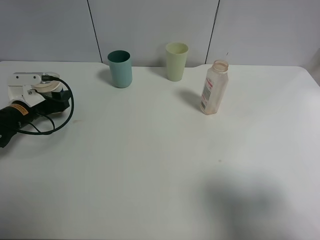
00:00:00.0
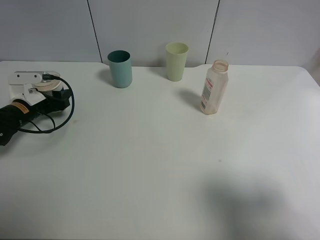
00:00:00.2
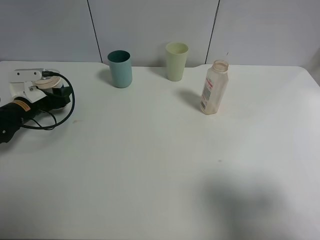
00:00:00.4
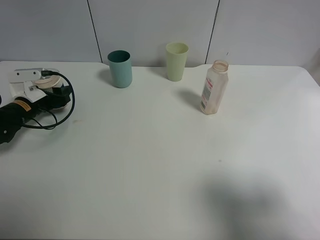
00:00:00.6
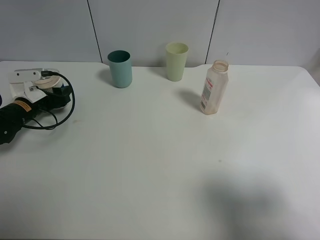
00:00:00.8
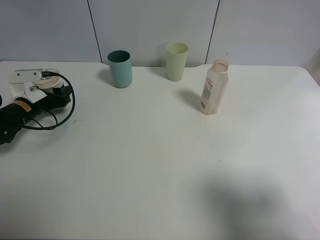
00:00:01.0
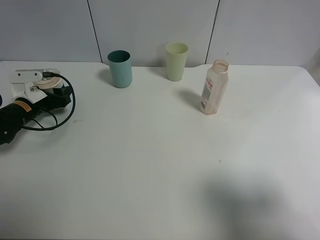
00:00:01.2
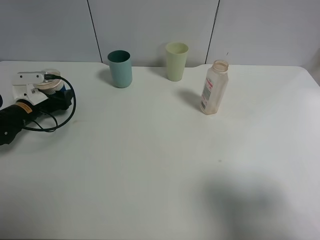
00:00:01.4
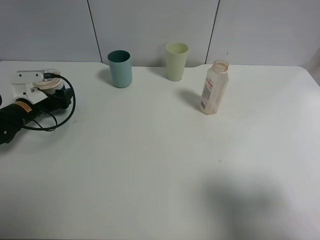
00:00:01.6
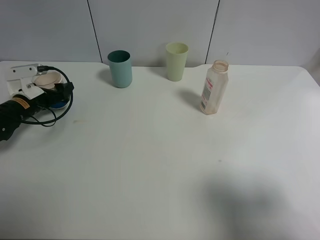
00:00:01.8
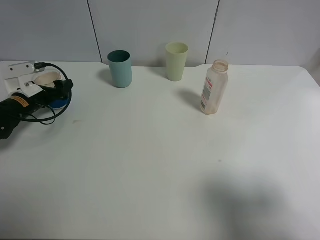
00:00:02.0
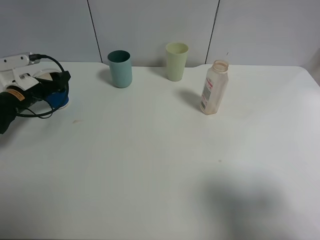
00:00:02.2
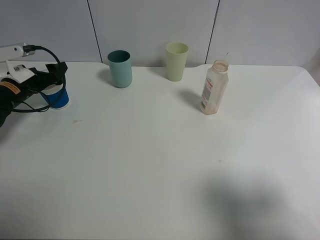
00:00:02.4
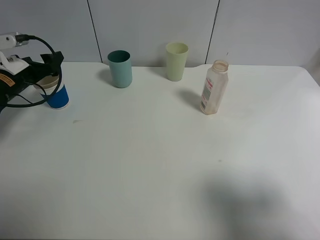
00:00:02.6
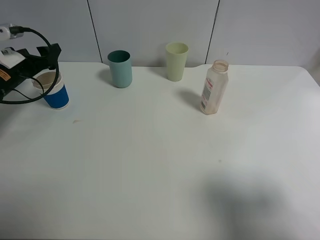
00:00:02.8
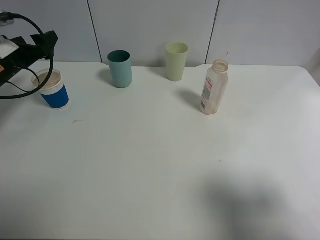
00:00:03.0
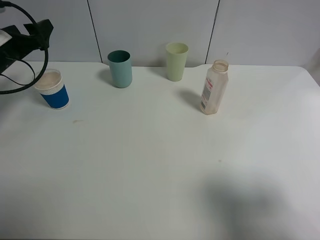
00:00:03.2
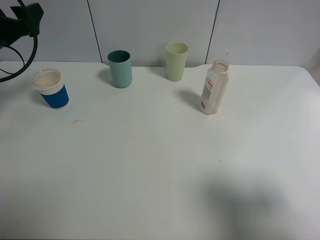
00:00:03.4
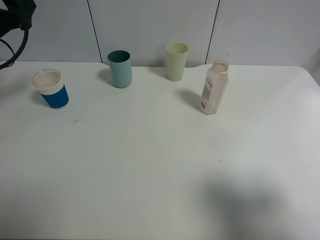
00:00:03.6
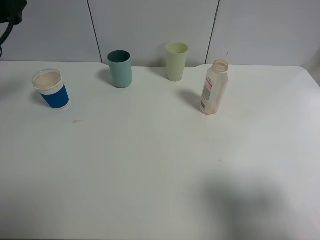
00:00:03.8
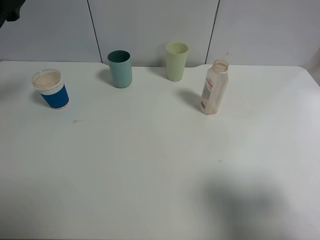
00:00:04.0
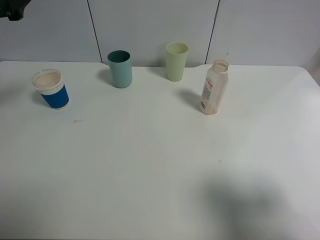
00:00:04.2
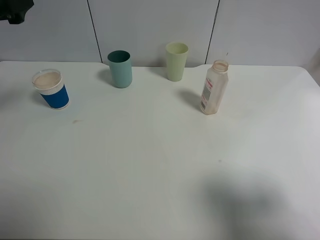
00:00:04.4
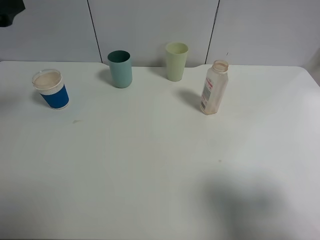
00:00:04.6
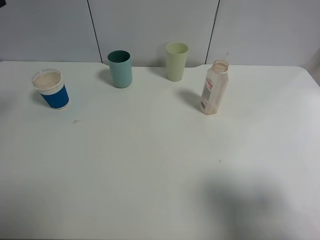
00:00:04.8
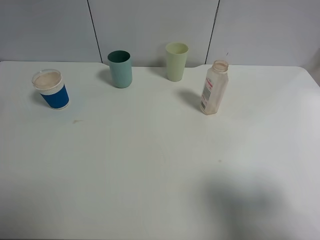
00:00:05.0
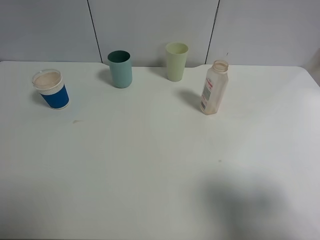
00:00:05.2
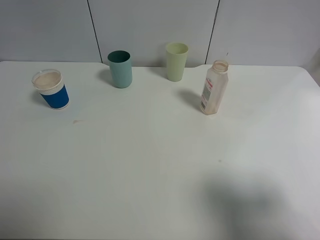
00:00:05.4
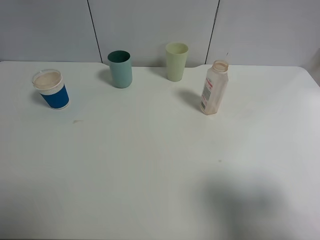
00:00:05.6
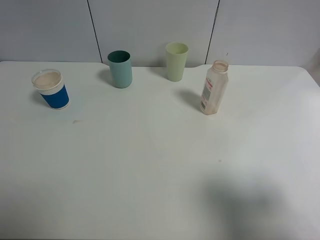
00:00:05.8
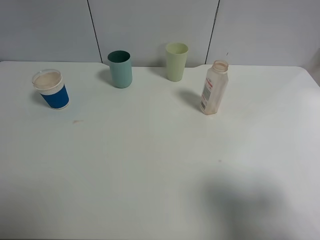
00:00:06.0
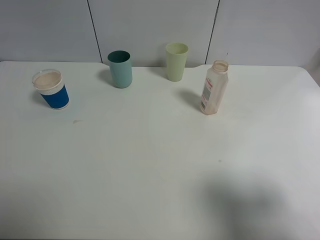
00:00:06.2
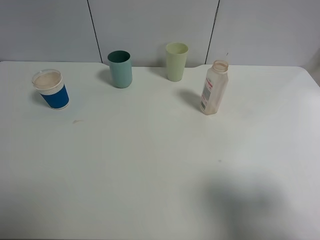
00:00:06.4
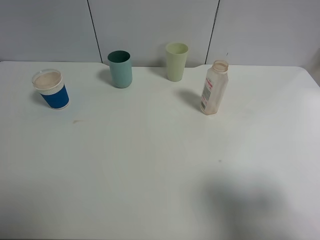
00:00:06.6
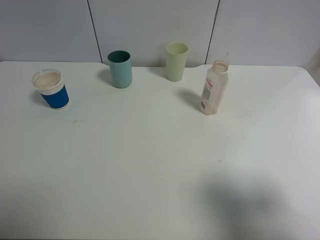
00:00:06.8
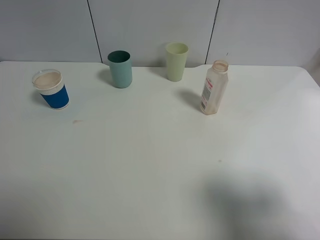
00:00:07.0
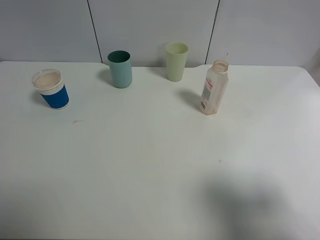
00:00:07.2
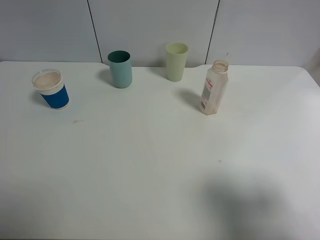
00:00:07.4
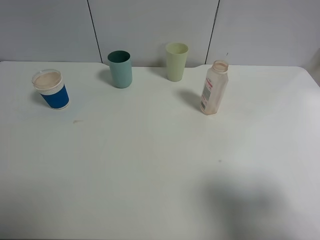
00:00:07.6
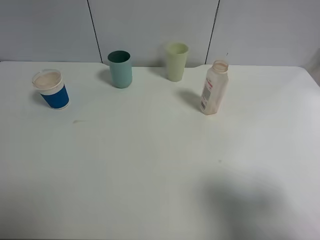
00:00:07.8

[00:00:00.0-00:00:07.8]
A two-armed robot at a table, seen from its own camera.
Task of the whole recording: use a clamp to hold the bottle of the drink, pour the beverage into a random cup, then clamp the cup containing the drink and pour the drink into another random cup.
Step, 00:00:00.0 to 00:00:02.6: Place the paper cup on the table with left gripper.
00:00:00.0 to 00:00:01.6: The grippers stay close to where they were, moving slightly.
00:00:01.6 to 00:00:03.2: The left gripper goes roughly 15 cm upward, and opens its fingers.
00:00:03.2 to 00:00:04.6: The left gripper travels upward and backward by some 15 cm.
00:00:04.6 to 00:00:06.2: The left gripper is displaced backward by roughly 20 cm.

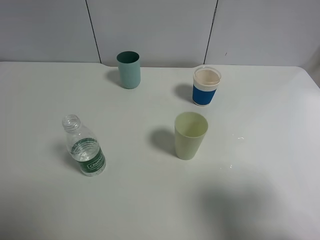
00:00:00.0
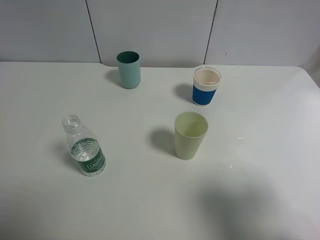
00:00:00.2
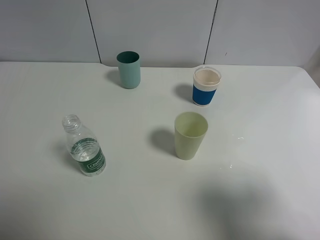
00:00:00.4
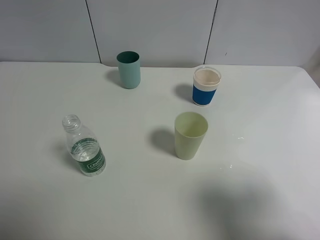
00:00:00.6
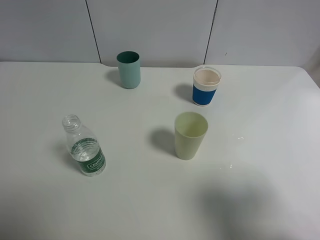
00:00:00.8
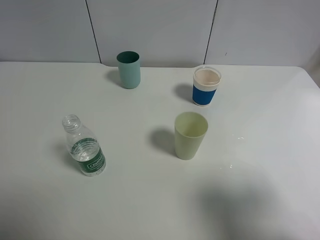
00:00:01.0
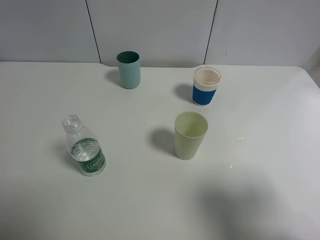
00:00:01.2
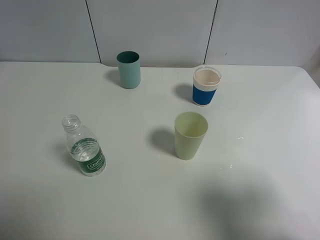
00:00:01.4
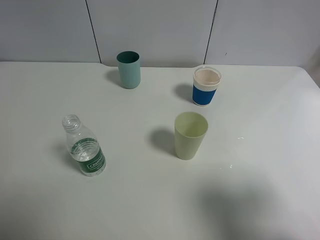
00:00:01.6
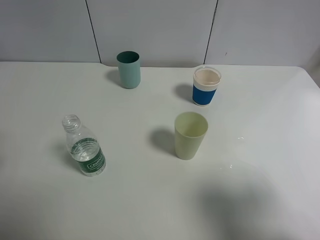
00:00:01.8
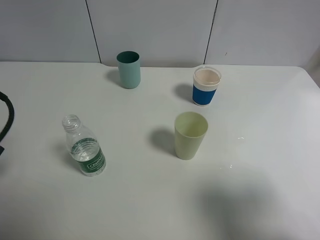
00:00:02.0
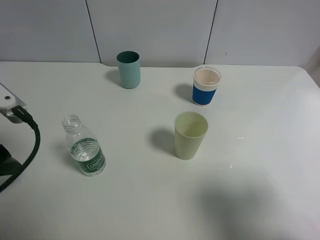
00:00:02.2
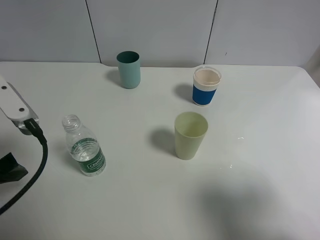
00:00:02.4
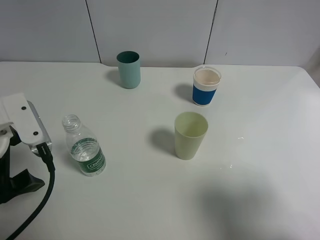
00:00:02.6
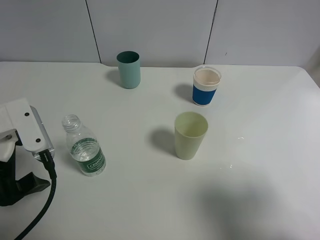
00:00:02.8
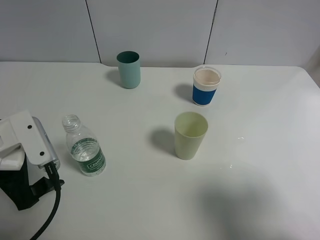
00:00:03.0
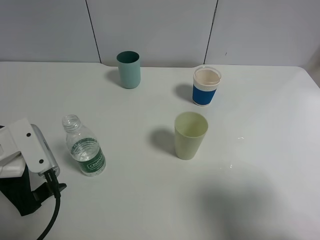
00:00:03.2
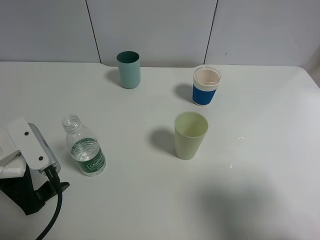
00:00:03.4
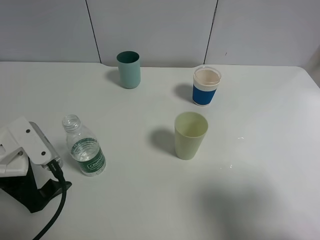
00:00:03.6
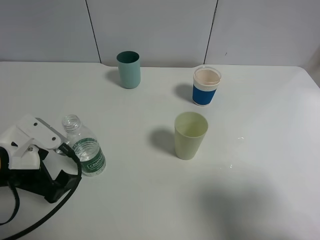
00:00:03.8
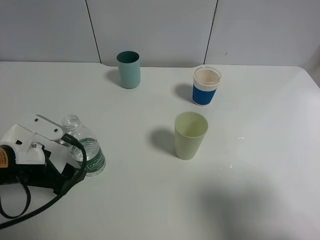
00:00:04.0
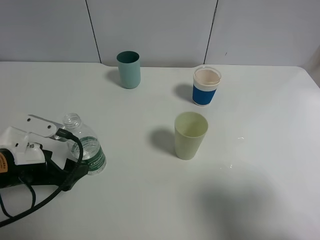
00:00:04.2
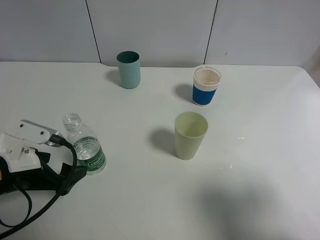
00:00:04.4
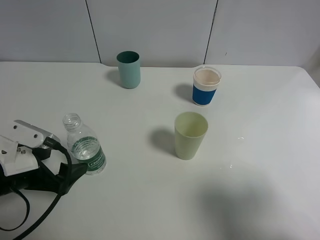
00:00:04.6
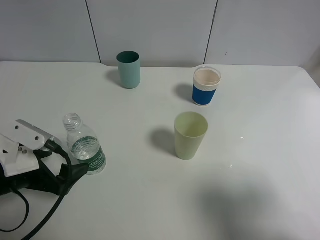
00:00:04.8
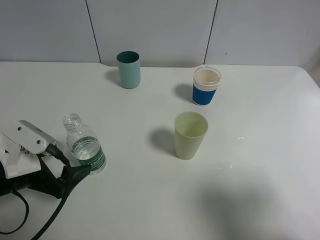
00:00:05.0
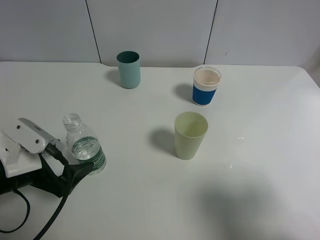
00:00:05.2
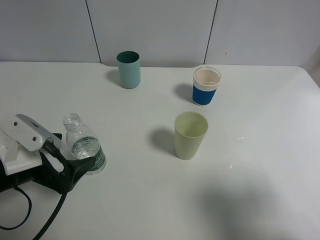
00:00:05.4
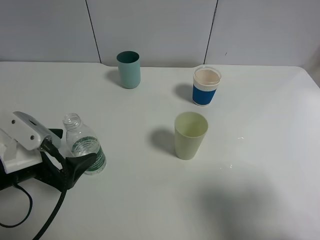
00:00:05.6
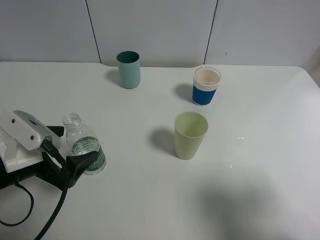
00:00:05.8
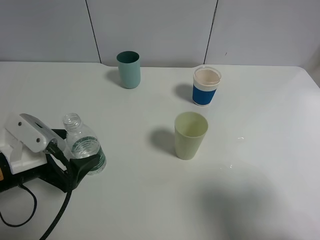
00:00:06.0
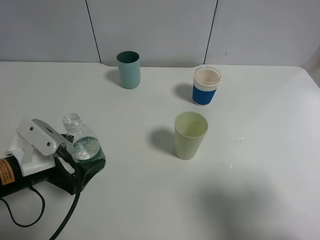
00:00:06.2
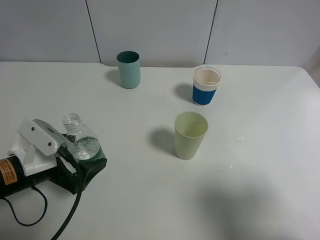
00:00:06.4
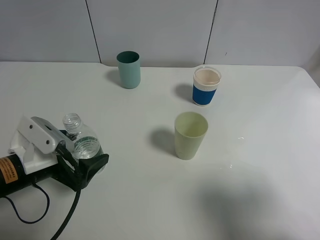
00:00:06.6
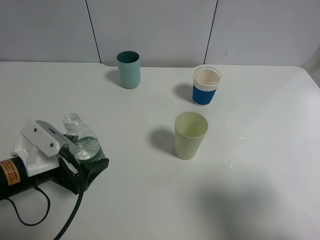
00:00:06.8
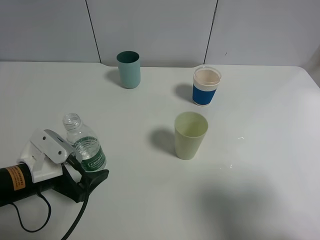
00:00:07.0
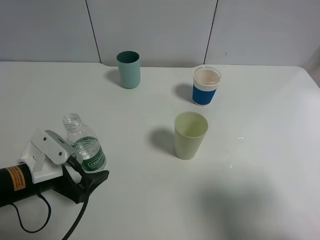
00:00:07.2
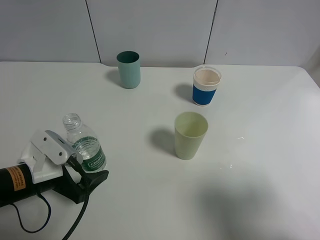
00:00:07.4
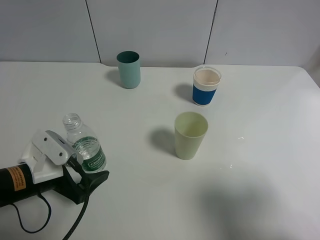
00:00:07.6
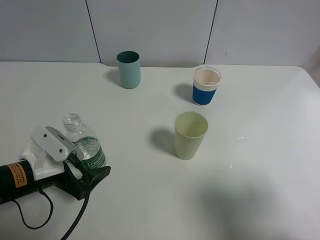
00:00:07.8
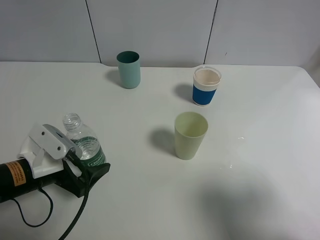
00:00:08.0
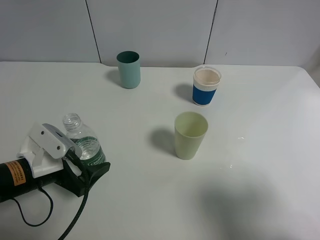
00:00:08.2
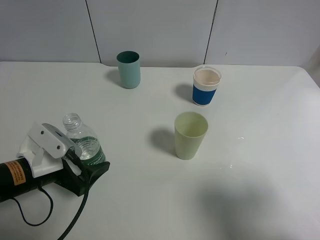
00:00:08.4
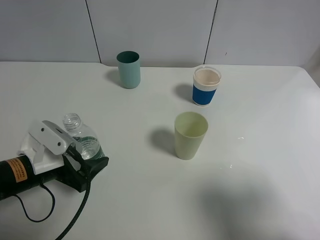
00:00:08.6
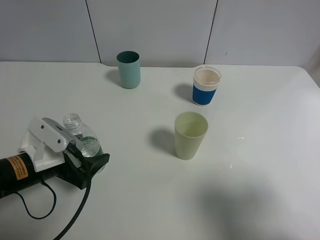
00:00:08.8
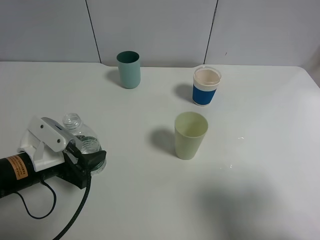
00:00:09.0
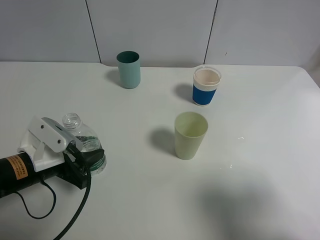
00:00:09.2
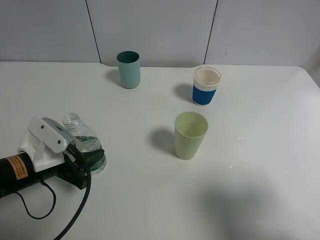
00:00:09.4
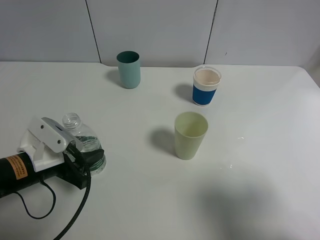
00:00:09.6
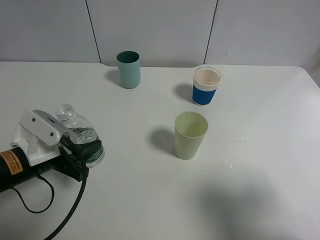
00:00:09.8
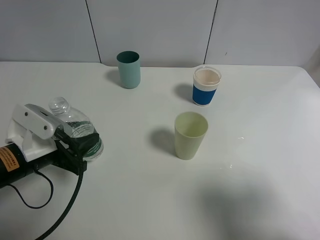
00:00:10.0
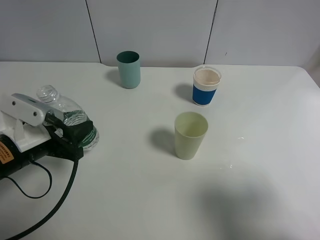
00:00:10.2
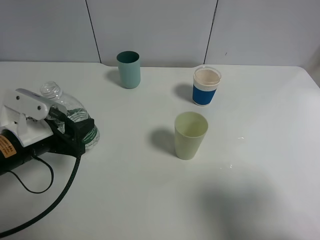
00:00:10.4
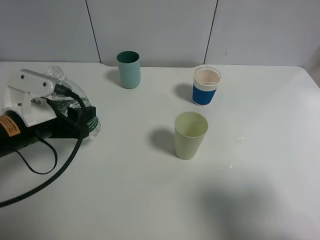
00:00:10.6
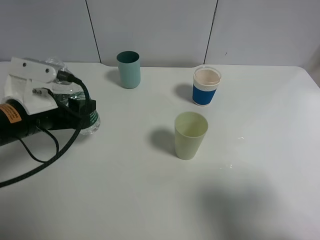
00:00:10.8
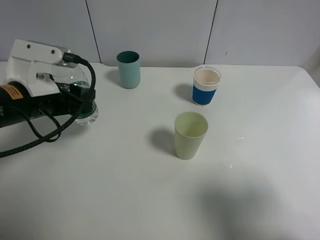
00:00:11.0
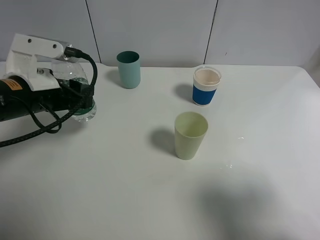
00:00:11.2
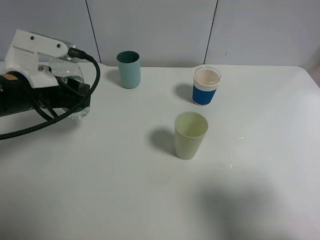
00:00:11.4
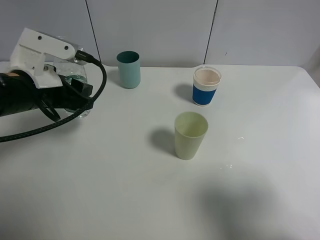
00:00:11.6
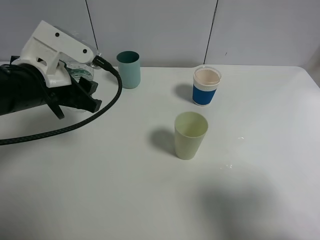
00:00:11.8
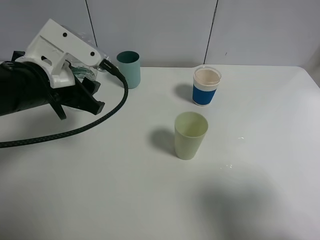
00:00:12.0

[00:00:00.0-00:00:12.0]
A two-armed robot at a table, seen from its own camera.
Task of the whole recording: use a clamp to hold the bottle of the drink, pour the beverage into a random cup, then clamp the cup containing the drink and pour the drink into another random cup.
Step, 00:00:00.0 to 00:00:10.2: Pick up the water bottle with left gripper.
00:00:01.6 to 00:00:03.0: The left gripper heads downward, to the right and forward, covering about 15 cm.
00:00:03.0 to 00:00:04.4: The left gripper moves downward, about 5 cm.
00:00:06.0 to 00:00:07.6: The grippers make only small movements.
00:00:07.6 to 00:00:09.0: The left gripper closes its fingers.
00:00:09.0 to 00:00:10.4: The left gripper closes its fingers.
00:00:10.4 to 00:00:12.0: The left gripper shifts about 10 cm upward and forward.

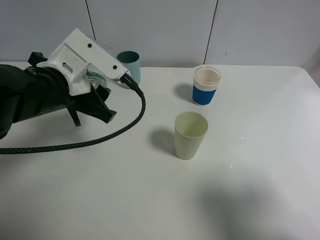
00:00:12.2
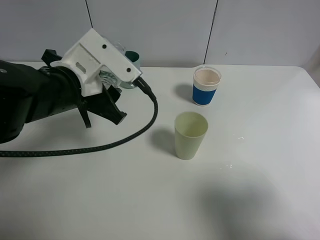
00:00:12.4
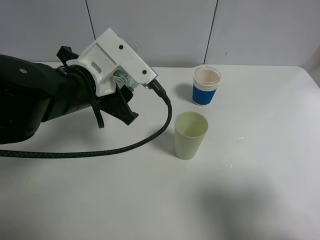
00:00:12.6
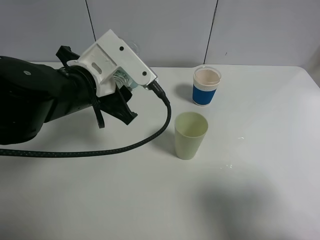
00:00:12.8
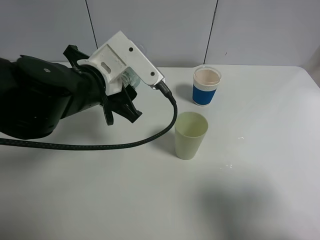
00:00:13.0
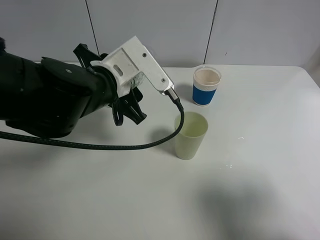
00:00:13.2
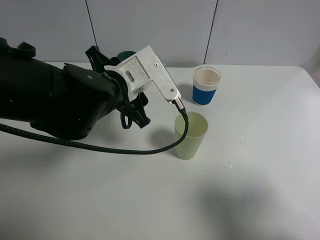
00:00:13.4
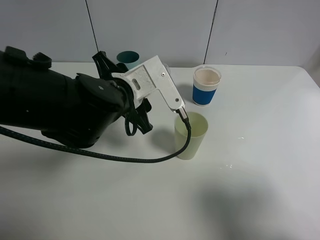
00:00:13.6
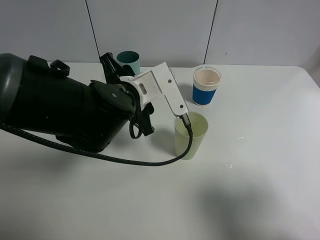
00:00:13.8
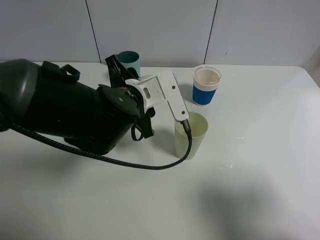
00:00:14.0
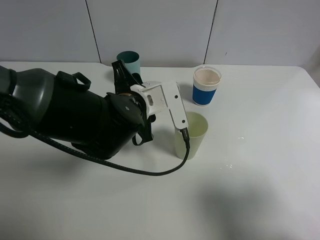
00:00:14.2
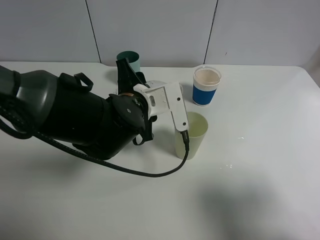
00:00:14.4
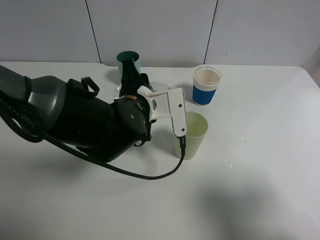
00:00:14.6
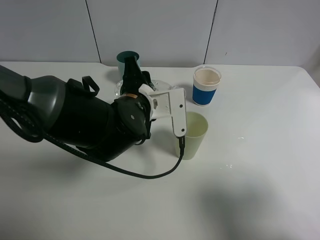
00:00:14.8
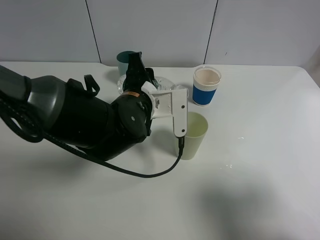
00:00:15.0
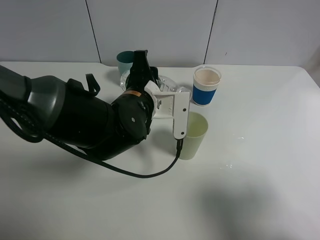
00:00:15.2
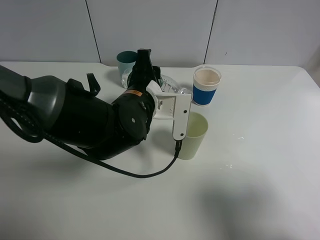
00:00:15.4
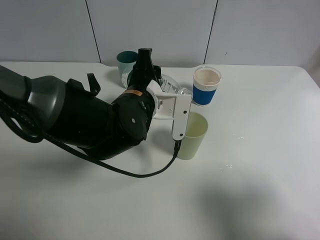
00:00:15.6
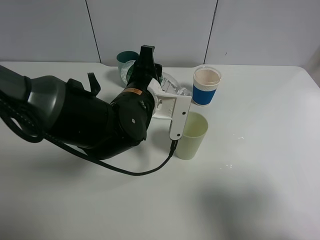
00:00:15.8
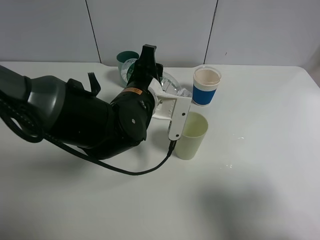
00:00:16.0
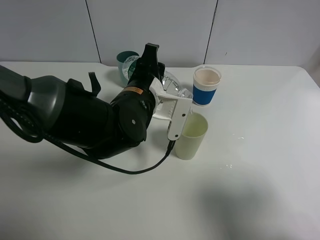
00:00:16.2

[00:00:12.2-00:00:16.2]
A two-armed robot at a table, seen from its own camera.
Task of the whole recording: use a clamp to hold the bottle of the drink, pour the beverage into a random cup, then clamp the cup containing the drink and pour the drink into another random cup.
00:00:12.2 to 00:00:13.6: The left gripper heads to the right, covering roughly 10 cm.
